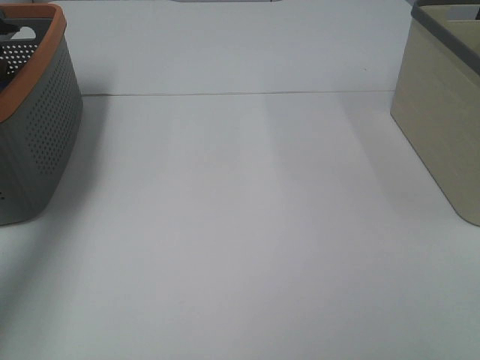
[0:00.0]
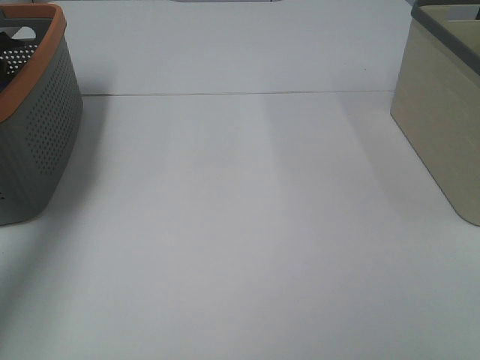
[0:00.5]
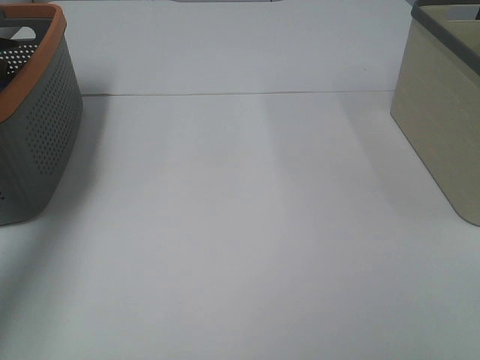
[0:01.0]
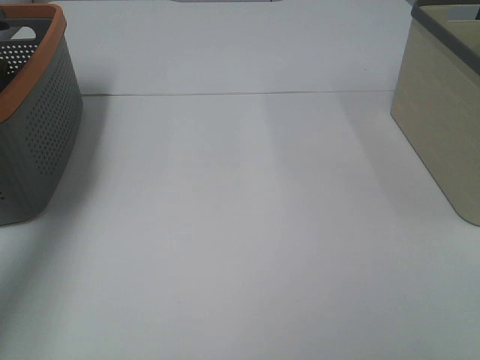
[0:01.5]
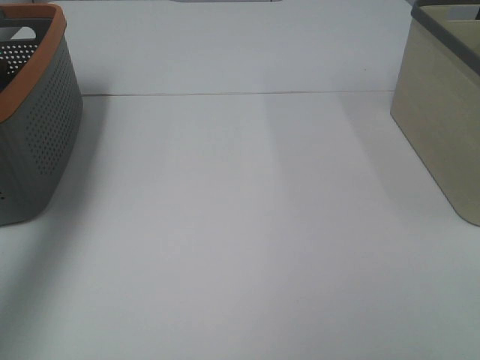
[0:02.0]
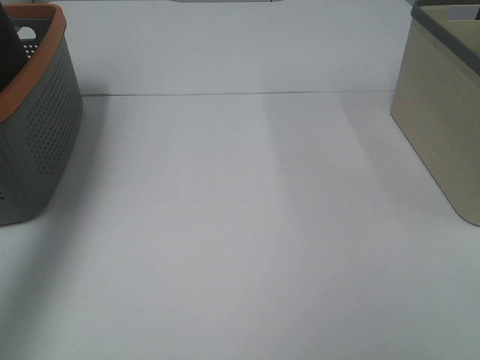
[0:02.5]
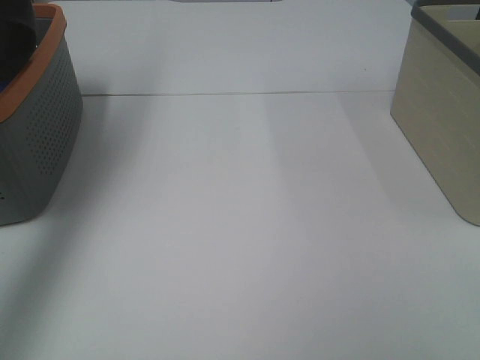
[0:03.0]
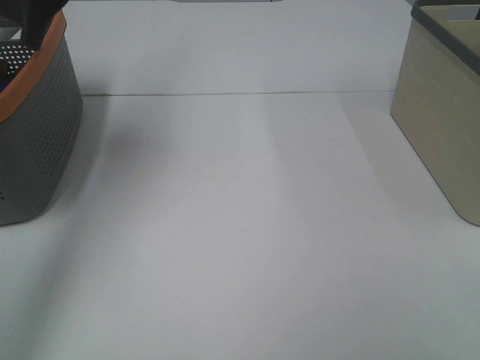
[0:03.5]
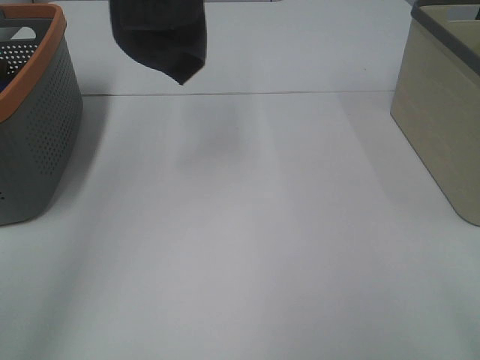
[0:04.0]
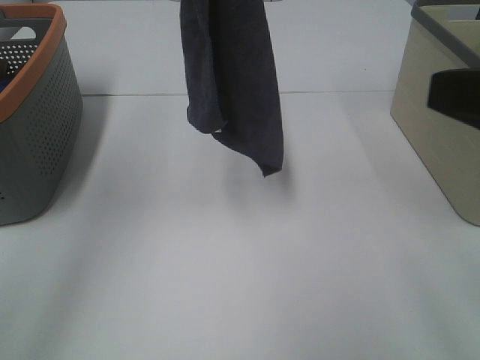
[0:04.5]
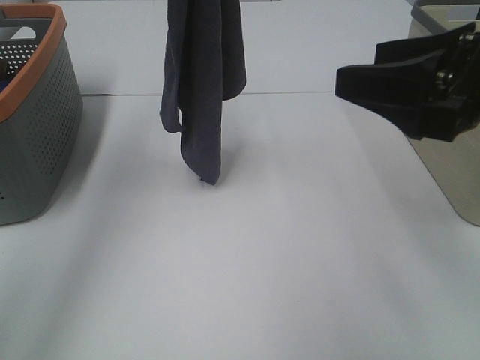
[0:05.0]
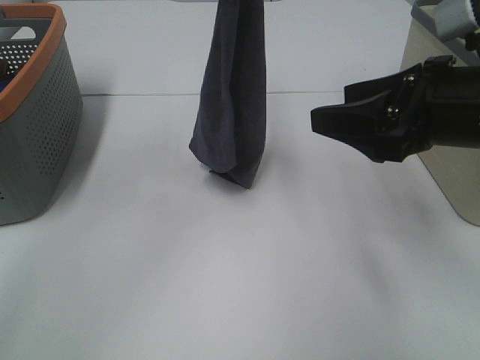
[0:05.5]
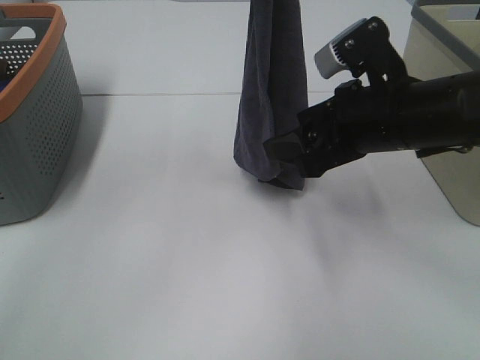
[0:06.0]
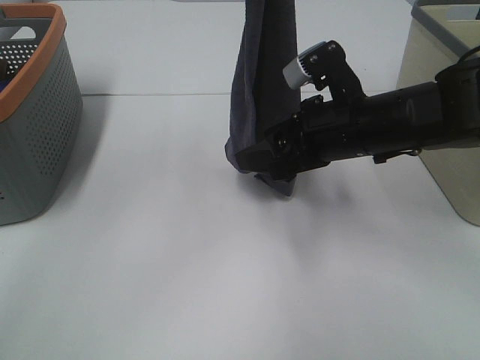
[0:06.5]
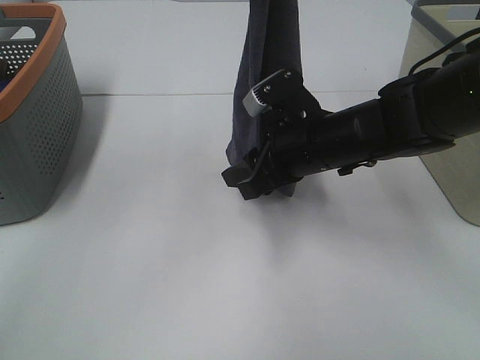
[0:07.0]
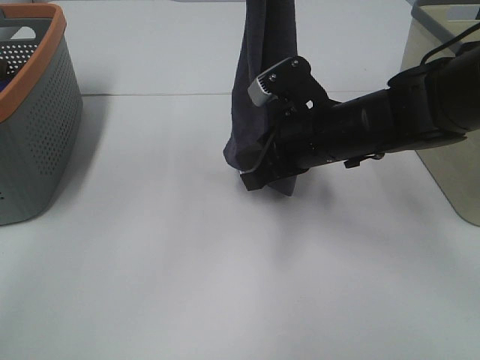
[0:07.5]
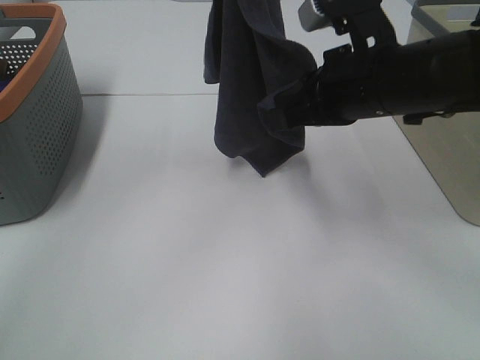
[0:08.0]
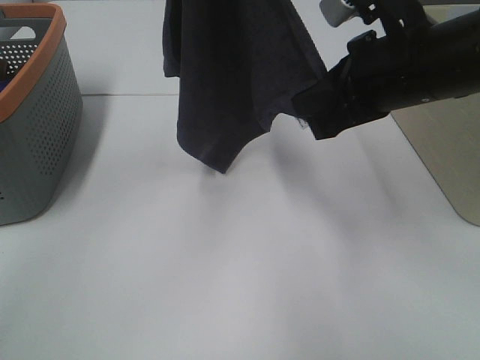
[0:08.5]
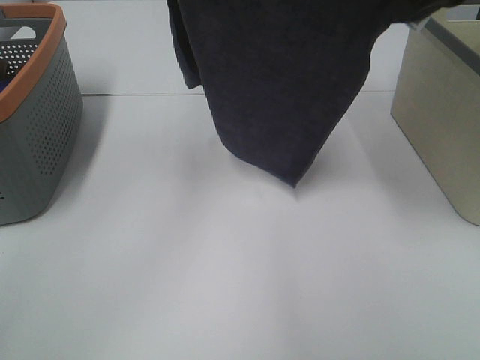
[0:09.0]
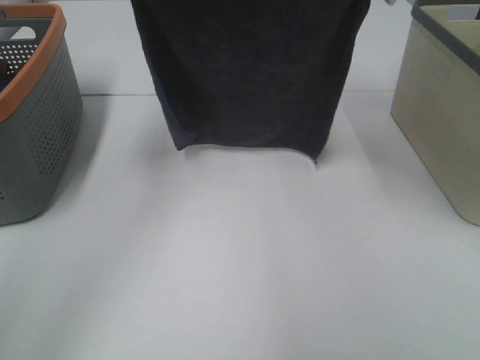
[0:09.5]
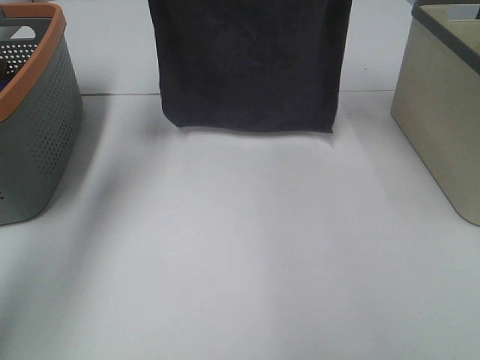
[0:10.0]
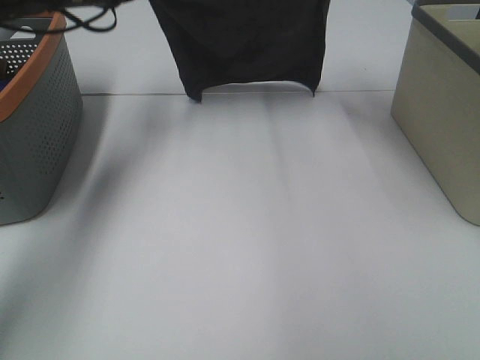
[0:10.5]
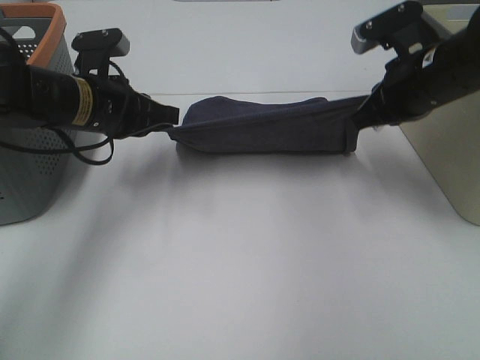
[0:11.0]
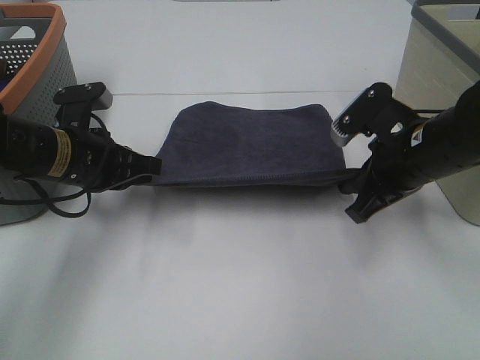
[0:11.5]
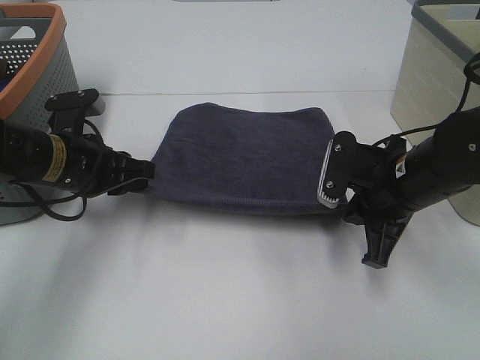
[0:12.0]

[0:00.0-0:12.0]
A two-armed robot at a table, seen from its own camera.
Task of the whole recording: Remove the towel and place it.
Step, 0:02.5 to 0:06.5: Right hand: grab a corner of the grey towel and straighten it.
Step, 0:07.0 to 0:08.5: Left hand: spread the grey towel flat on the table.
Step, 0:07.0 to 0:08.5: Right hand: spread the grey towel flat on the table.
0:02.0 to 0:04.0: The right gripper heads forward, covering about 5 cm; the left gripper moves to the right and upward, some 20 cm.
0:04.0 to 0:06.0: The left gripper goes approximately 15 cm downward and to the right. Meanwhile the right gripper moves forward, downward and to the left, some 25 cm.
0:06.0 to 0:08.0: The right gripper closes up.
0:08.0 to 0:10.0: The left gripper shifts roughly 20 cm forward, to the left and downward. Meanwhile the right gripper moves forward and upward, approximately 20 cm.
0:10.0 to 0:12.0: The grippers both shift downward and backward by some 25 cm. The left gripper opens its fingers.

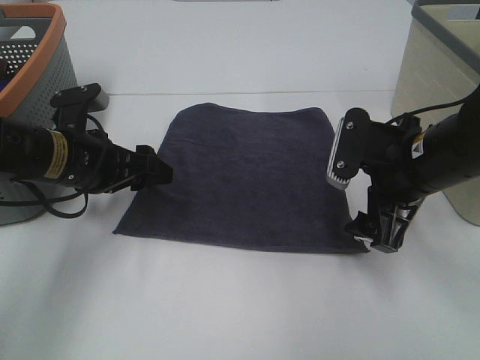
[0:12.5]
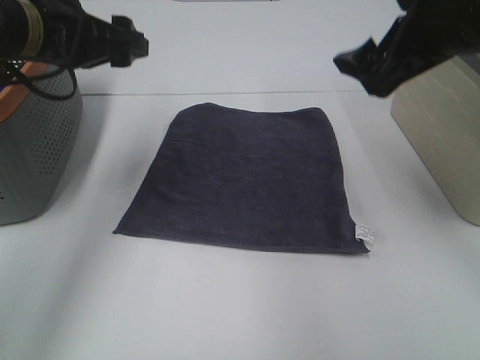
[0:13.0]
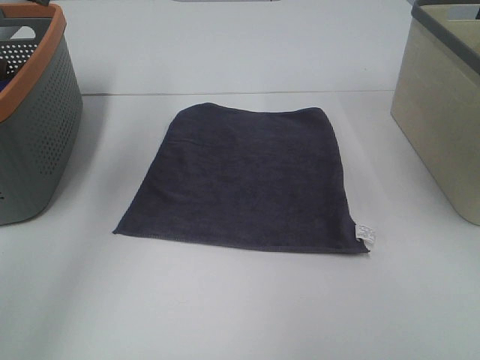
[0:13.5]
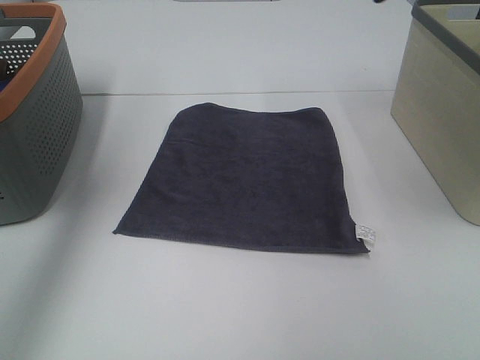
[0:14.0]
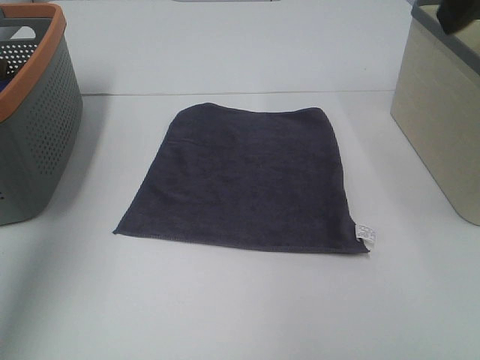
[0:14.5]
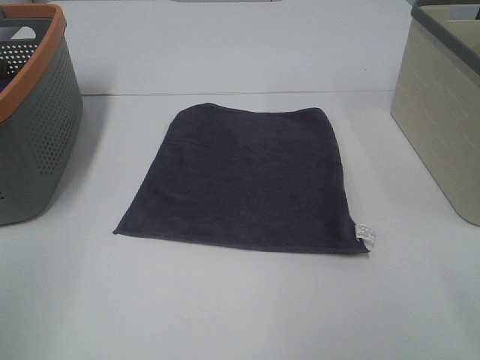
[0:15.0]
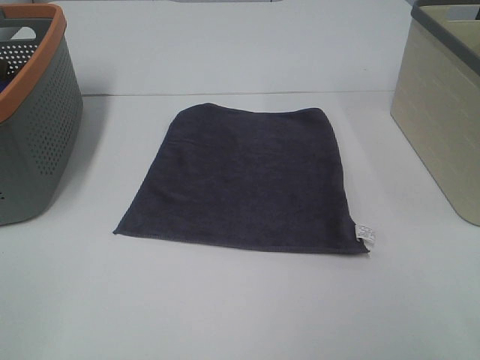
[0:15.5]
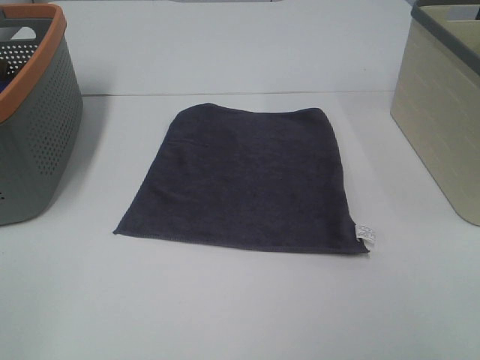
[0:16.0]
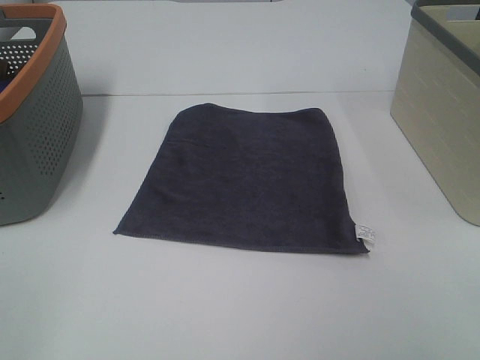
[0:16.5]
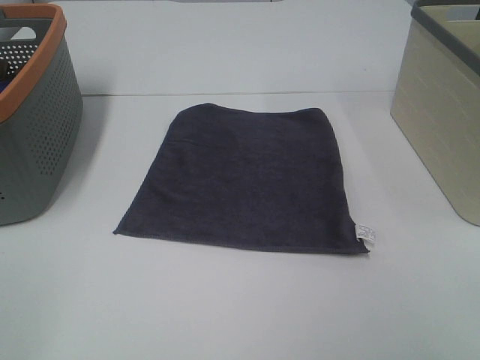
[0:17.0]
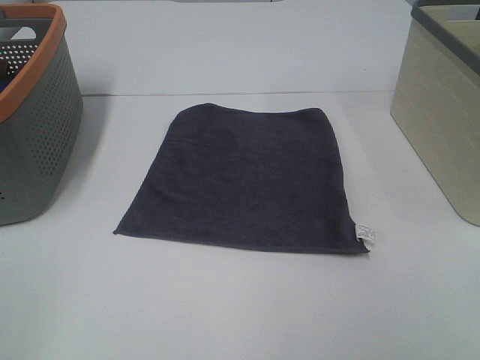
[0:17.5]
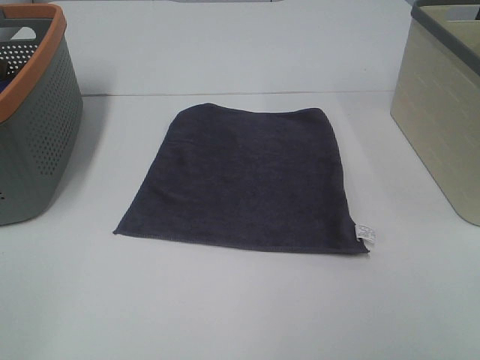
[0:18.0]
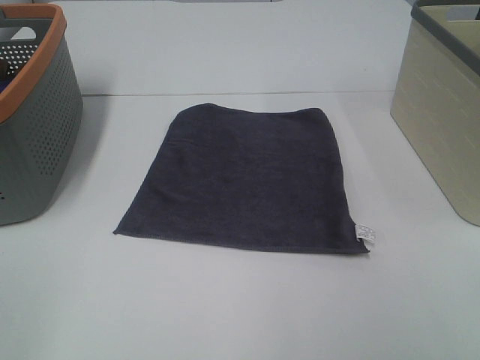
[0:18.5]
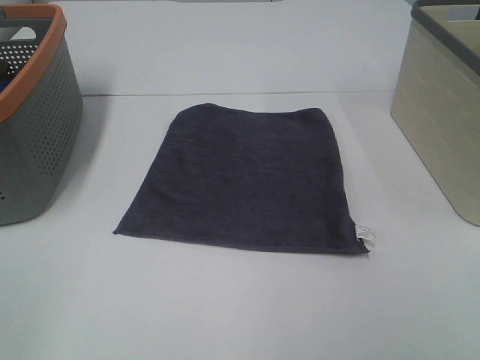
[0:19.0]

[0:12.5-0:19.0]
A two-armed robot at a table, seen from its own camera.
Task of the whole recording: Remove the towel and place it.
0:12.5 to 0:14.5: The left gripper is displaced upward and to the left by roughly 25 cm. Meanwhile the right gripper goes roughly 25 cm upward.
0:14.5 to 0:17.0: The grippers both shift backward and downward by some 25 cm.

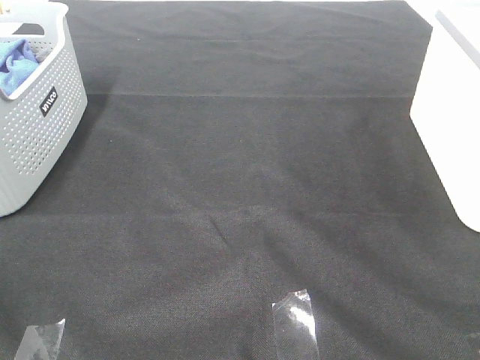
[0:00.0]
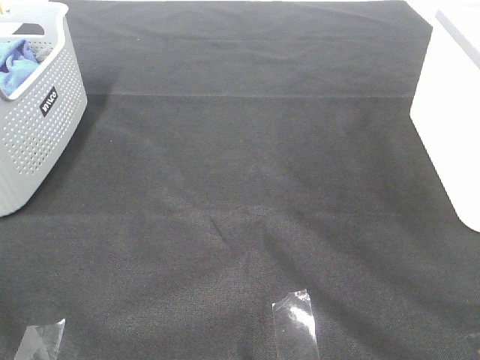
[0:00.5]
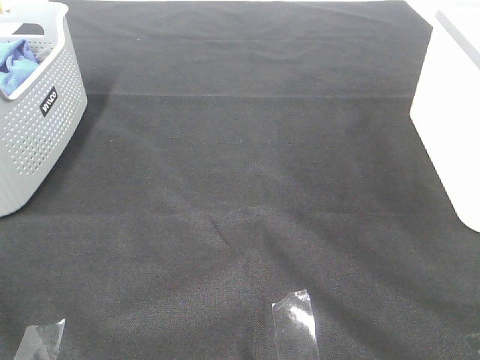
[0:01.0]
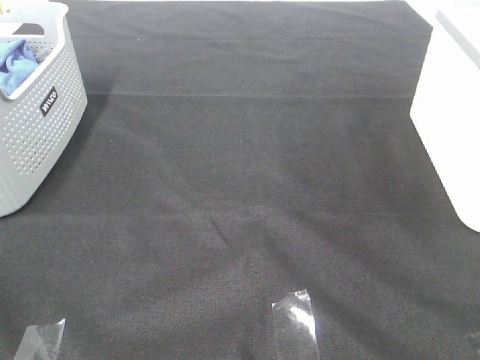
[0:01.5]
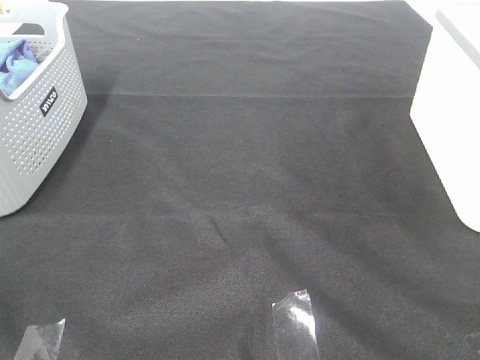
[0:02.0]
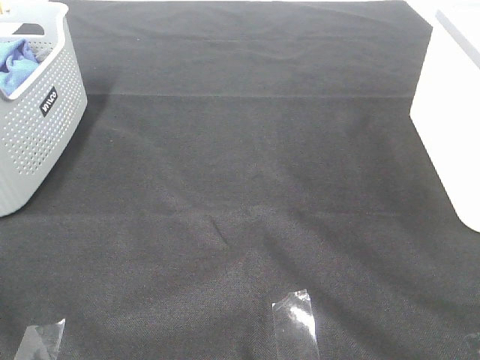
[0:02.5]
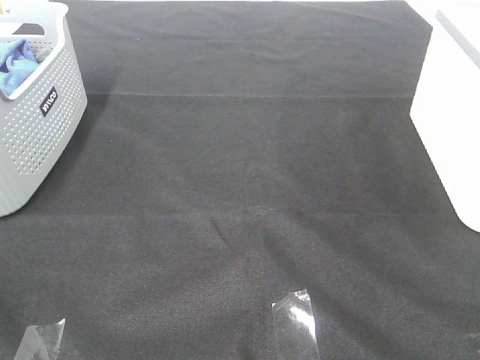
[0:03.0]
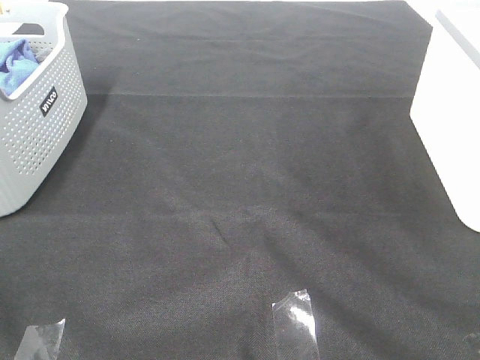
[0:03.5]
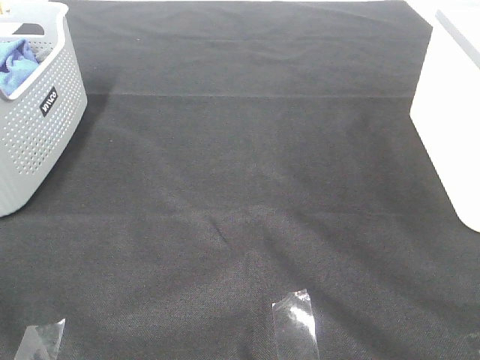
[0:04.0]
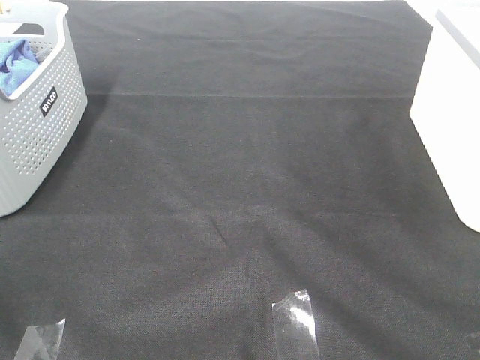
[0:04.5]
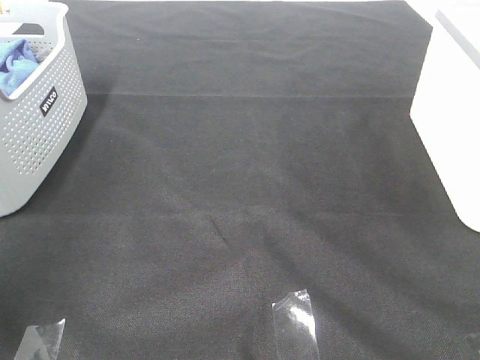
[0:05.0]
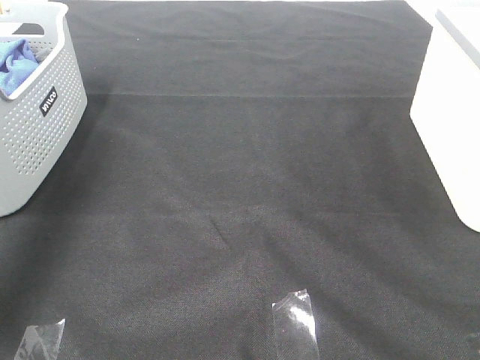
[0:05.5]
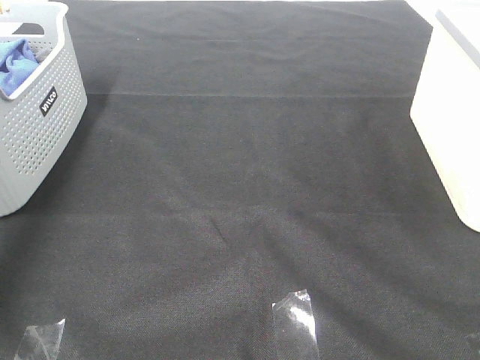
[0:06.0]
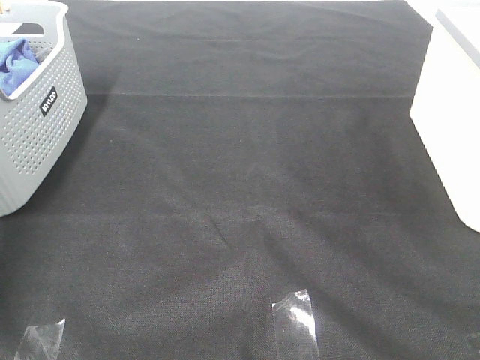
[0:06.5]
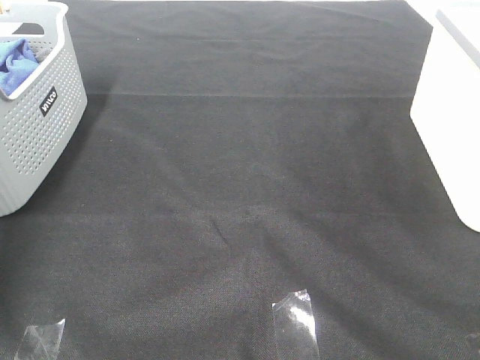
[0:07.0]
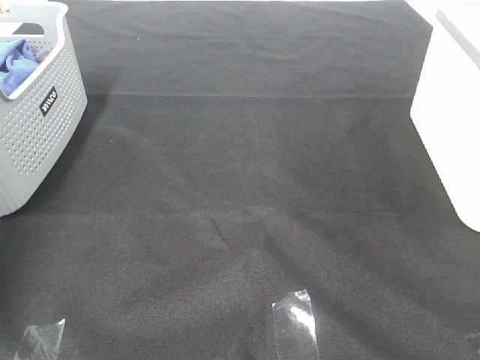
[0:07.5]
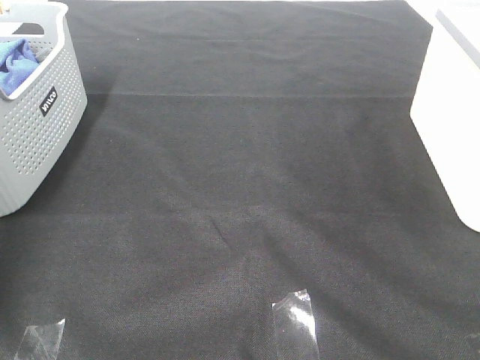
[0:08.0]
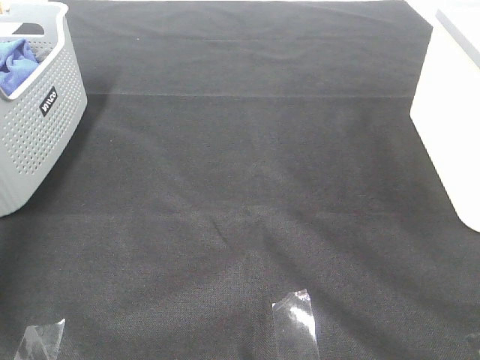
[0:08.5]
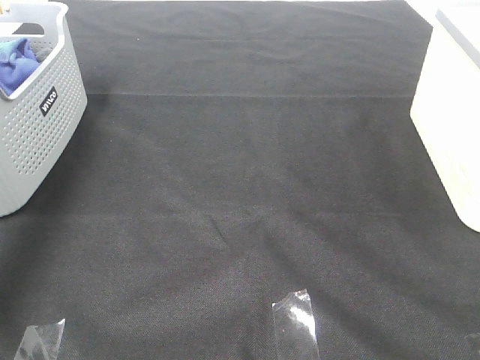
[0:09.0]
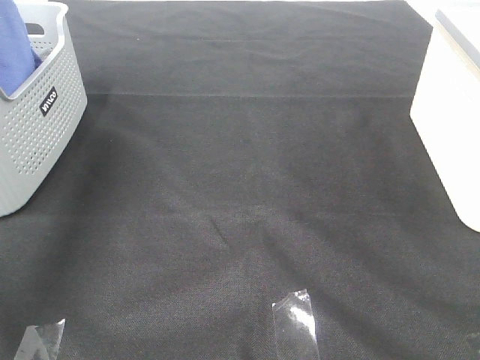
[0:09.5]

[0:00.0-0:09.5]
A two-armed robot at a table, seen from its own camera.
Task of the whole recording: Remove the towel and place it.
0:00.0 to 0:04.0: The two grippers keep their place.
0:04.0 to 0:05.5: The left gripper goes roughly 35 cm forward.
0:05.5 to 0:07.5: The left gripper heads downward and forward, covering about 25 cm, and closes.
0:07.5 to 0:09.5: The left gripper goes some 35 cm upward, backward and to the right.
